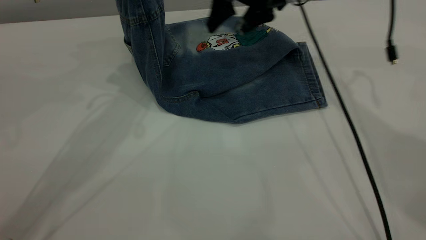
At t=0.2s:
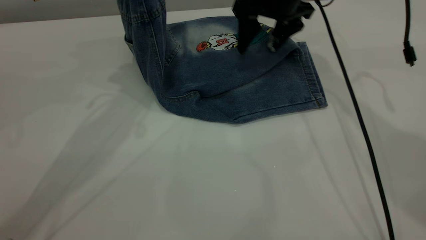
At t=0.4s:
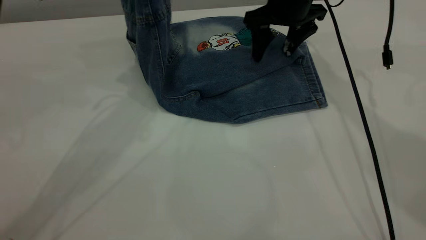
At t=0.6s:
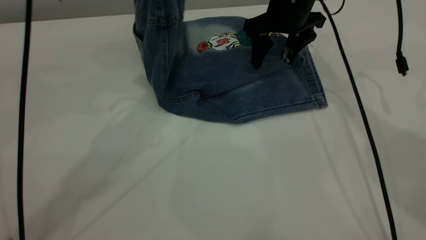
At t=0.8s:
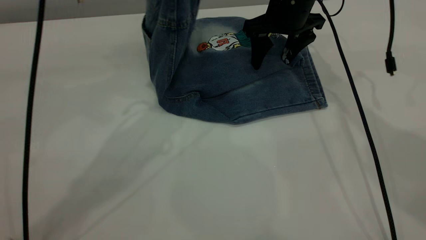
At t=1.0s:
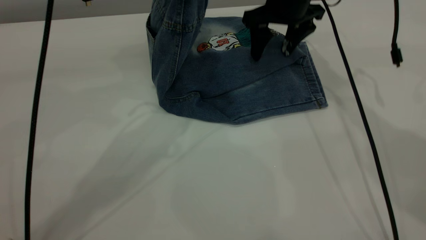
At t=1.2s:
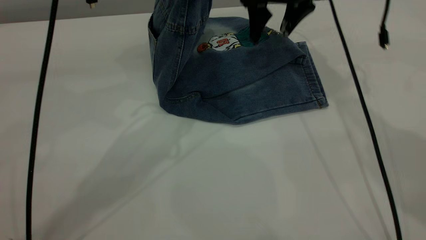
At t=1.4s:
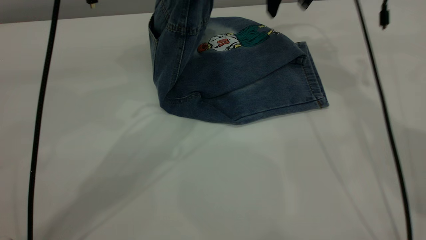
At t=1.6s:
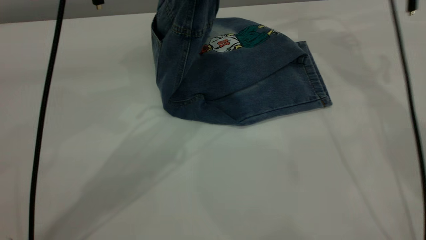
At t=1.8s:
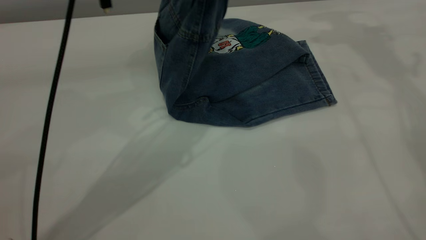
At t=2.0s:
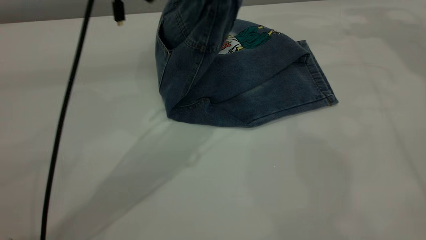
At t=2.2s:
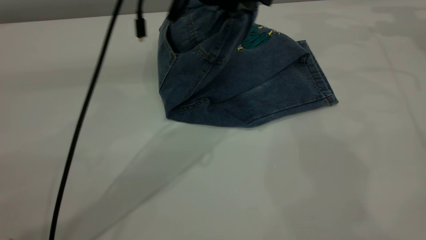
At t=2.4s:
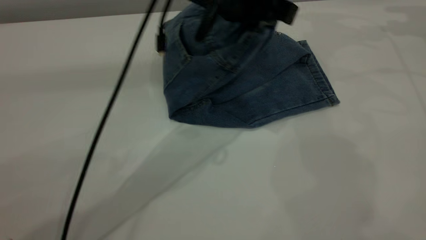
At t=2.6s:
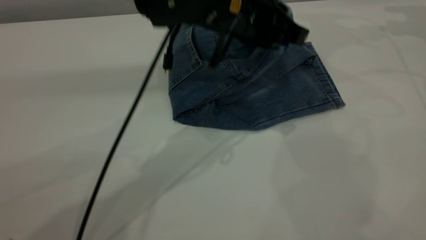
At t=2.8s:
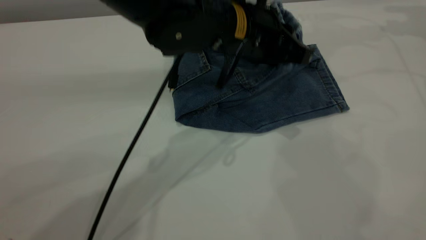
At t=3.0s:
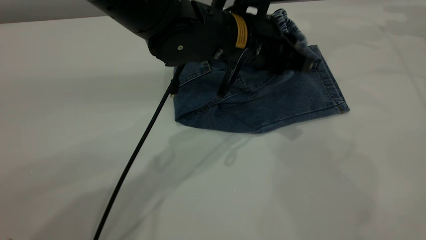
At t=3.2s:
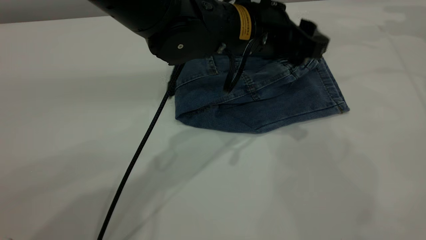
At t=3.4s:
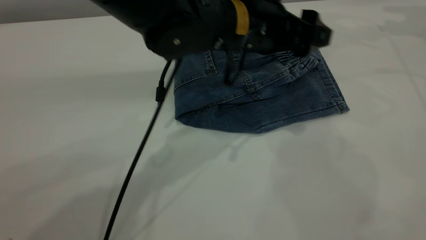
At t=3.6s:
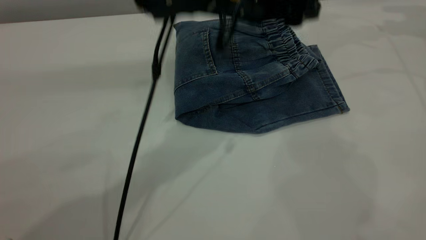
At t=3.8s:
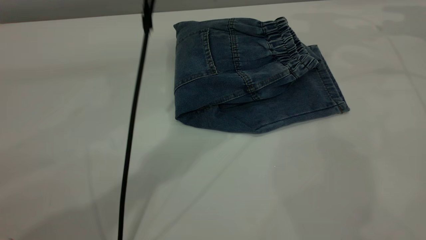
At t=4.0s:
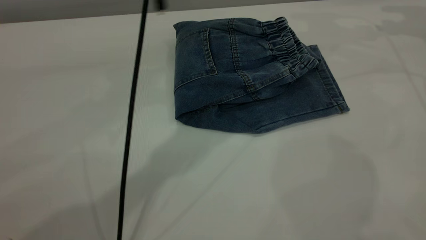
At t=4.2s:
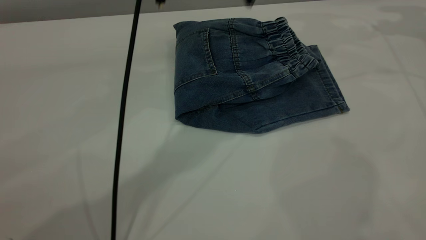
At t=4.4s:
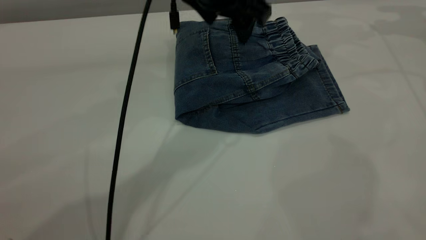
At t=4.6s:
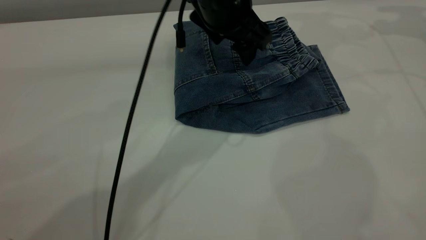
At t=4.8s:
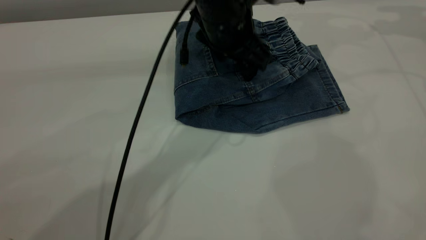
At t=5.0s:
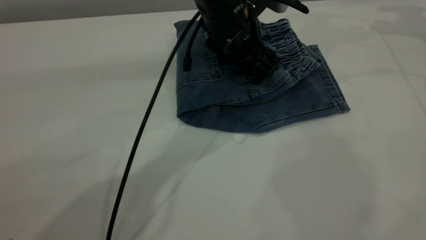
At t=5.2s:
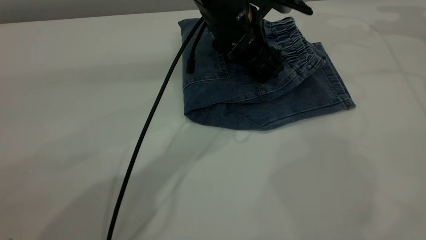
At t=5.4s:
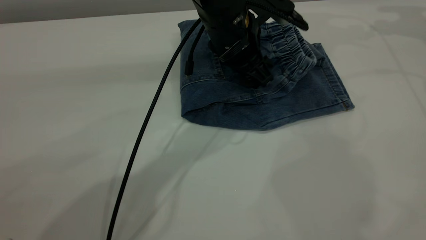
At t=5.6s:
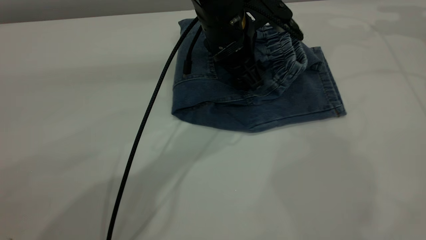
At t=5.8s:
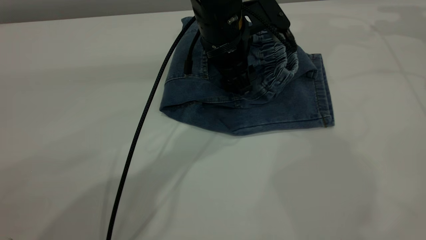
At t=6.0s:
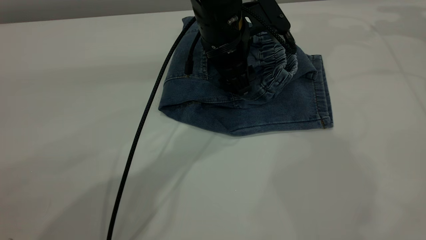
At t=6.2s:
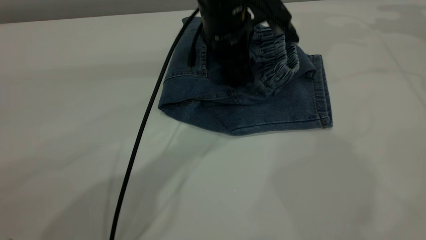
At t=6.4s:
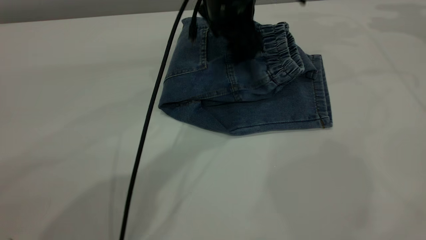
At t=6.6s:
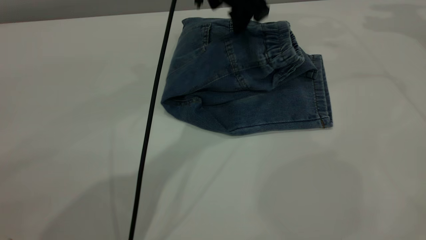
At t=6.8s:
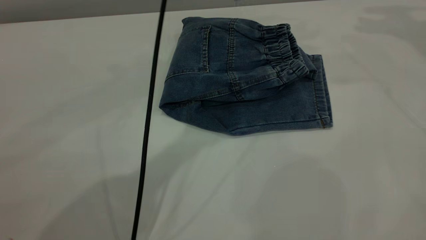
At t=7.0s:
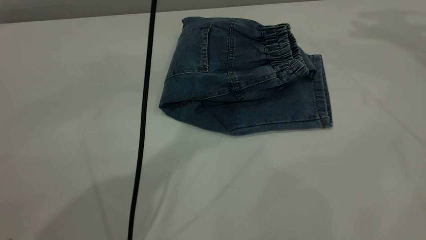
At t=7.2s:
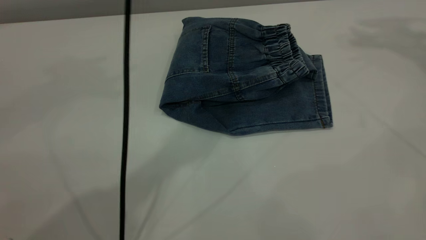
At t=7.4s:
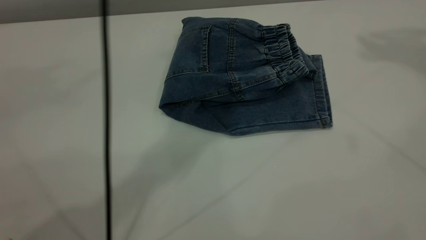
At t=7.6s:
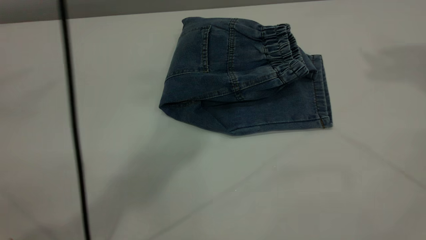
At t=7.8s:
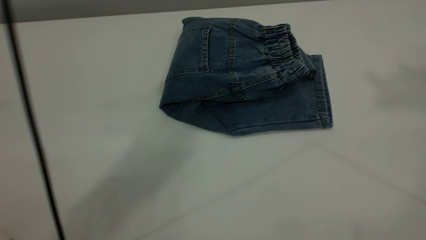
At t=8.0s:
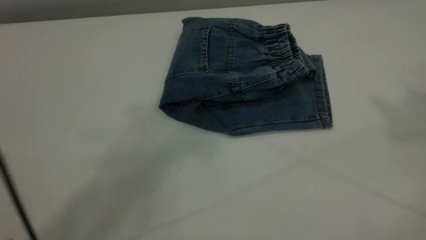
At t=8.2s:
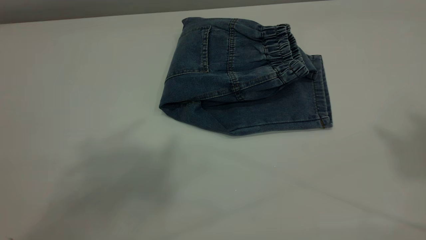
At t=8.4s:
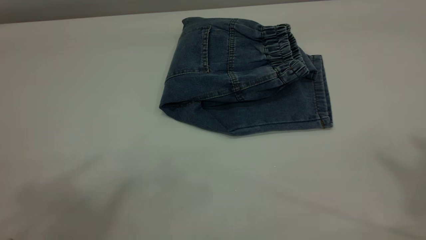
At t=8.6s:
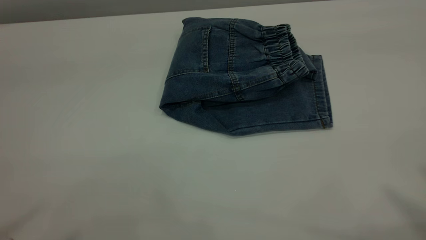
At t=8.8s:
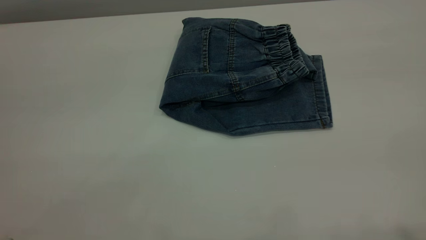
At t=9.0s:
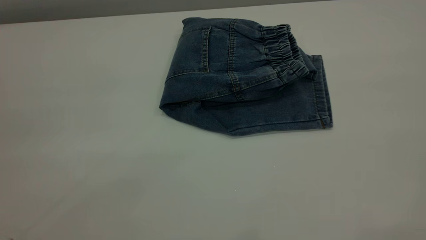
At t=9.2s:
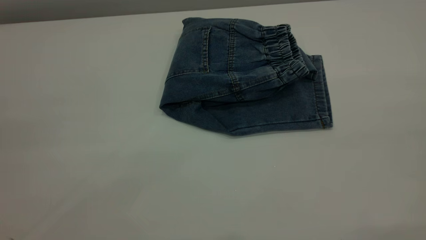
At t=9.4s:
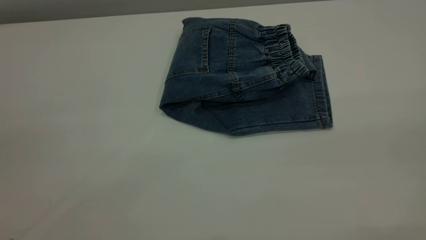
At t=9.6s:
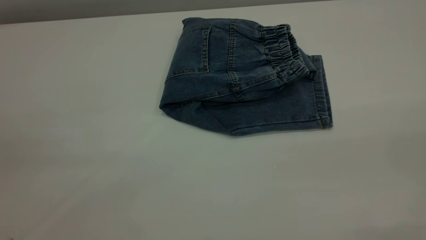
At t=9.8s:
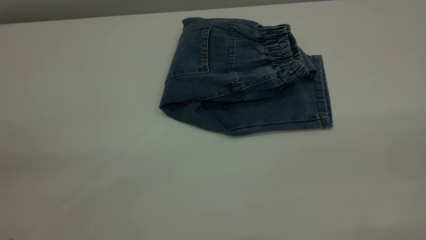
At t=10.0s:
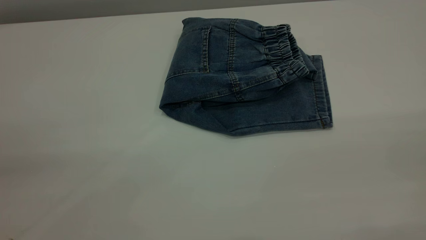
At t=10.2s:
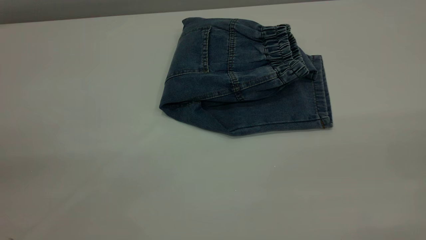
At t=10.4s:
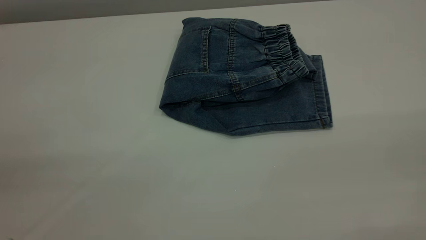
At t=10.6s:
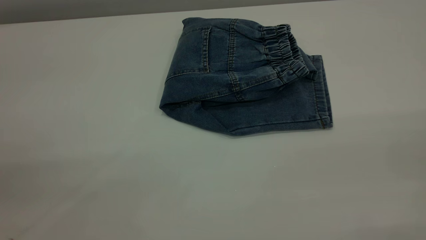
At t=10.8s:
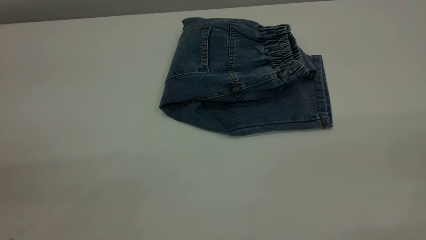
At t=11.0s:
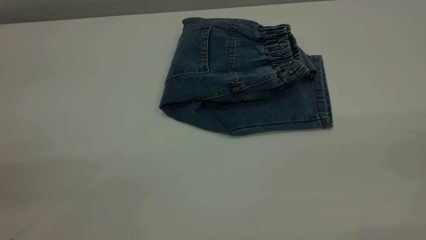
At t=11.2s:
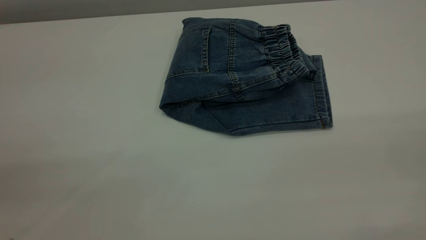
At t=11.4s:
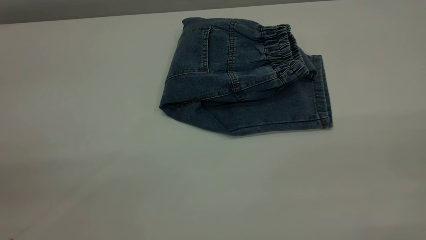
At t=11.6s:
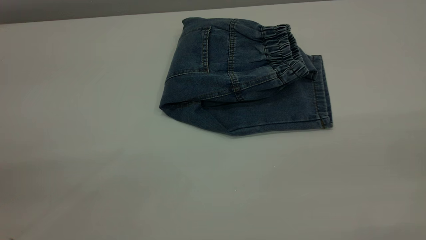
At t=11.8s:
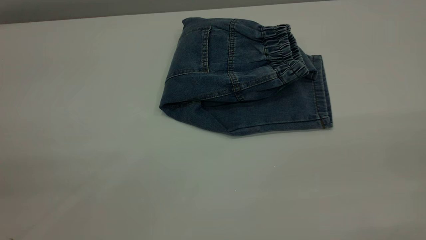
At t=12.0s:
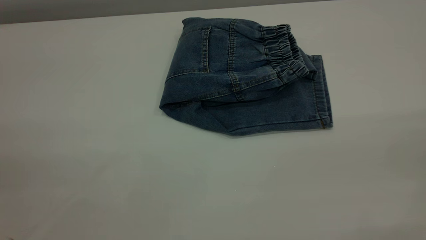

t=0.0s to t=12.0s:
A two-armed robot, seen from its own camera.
Step, t=0.0s to t=3.6s: Fold the pants from left to right.
t=0.0s to t=1.6s: The right gripper is displaced to the right and upward by approximately 10 cm; the left gripper moves to the right, roughly 10 cm.
t=1.6s to t=3.0s: The left gripper goes roughly 15 cm downward and to the right. The right gripper goes roughly 20 cm to the right.
t=3.0s to t=4.4s: The left gripper is displaced upward by approximately 5 cm, and opens its fingers.
t=4.4s to t=6.0s: The left gripper shifts approximately 10 cm downward.
t=6.0s to t=7.6s: The left gripper moves upward, approximately 40 cm; the right gripper moves upward and backward, some 30 cm.
t=7.6s to t=9.0s: The left gripper moves backward and to the left, approximately 40 cm.

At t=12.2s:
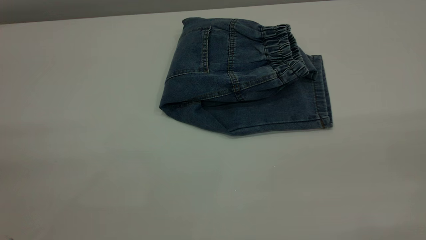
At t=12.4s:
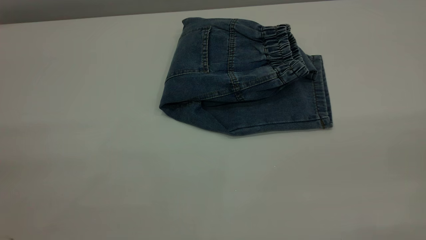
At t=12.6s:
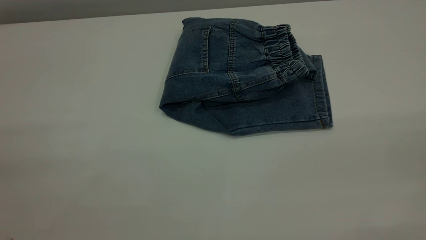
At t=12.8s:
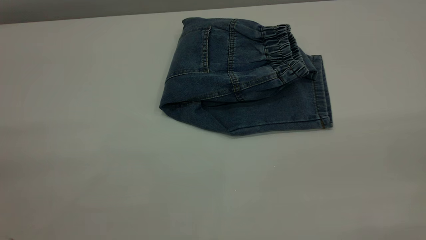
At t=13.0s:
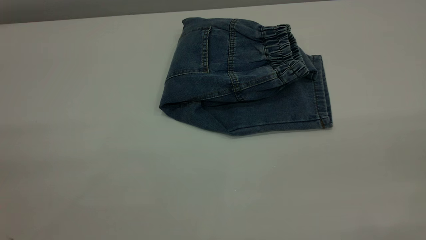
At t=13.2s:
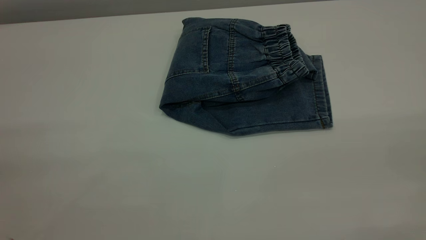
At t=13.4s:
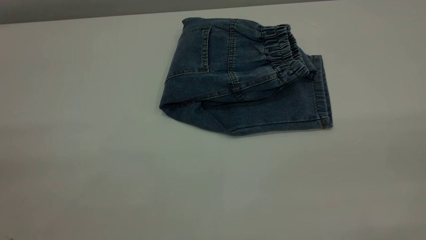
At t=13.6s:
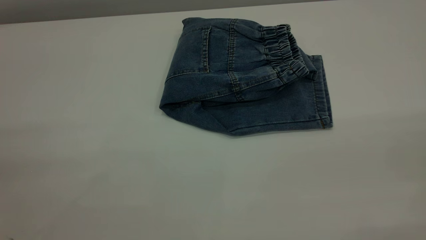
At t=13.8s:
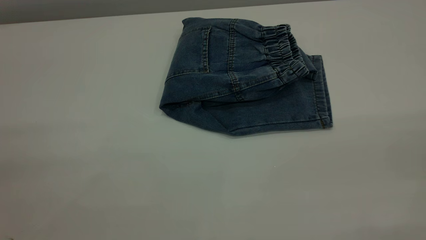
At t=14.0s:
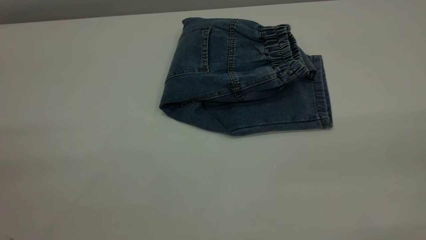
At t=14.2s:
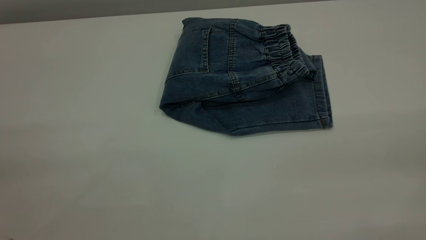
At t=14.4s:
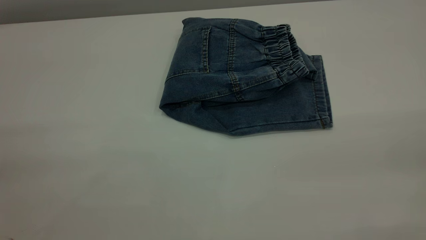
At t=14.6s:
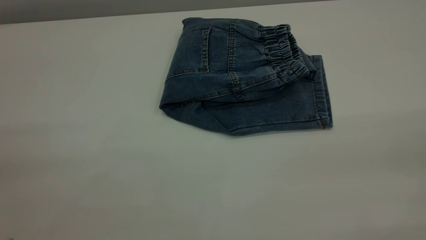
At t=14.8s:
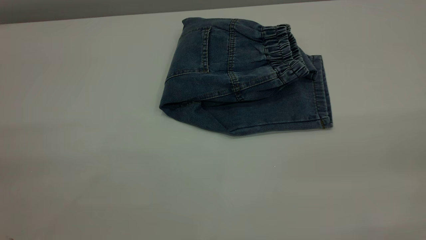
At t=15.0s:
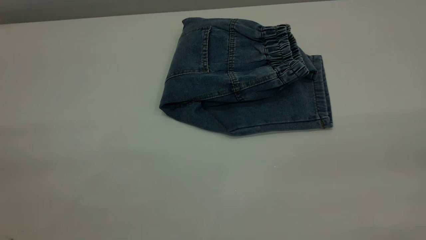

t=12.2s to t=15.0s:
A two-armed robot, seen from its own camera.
t=12.2s to t=13.6s: Both grippers stay put.

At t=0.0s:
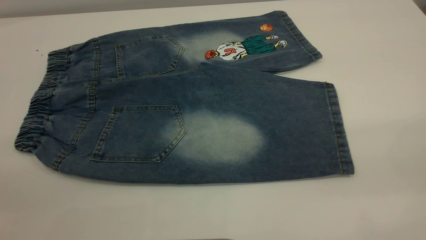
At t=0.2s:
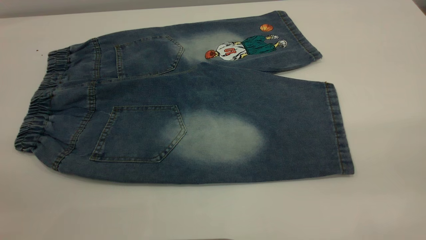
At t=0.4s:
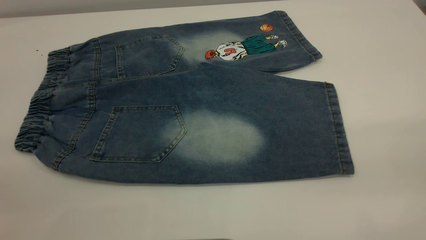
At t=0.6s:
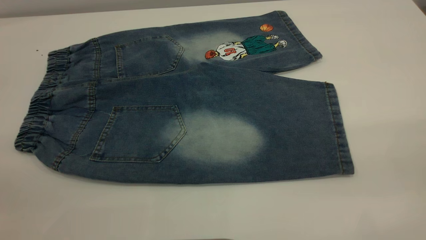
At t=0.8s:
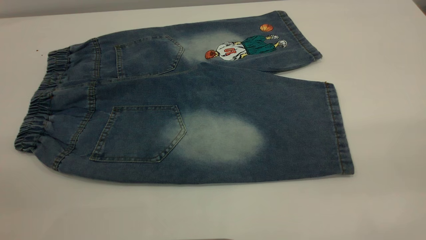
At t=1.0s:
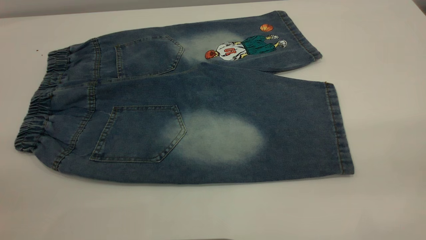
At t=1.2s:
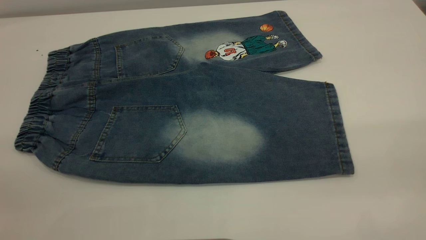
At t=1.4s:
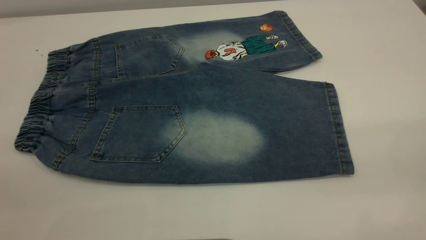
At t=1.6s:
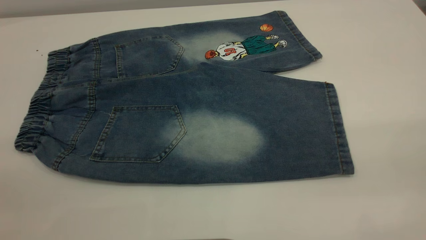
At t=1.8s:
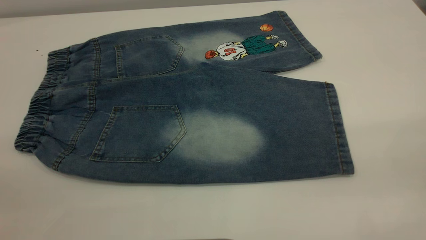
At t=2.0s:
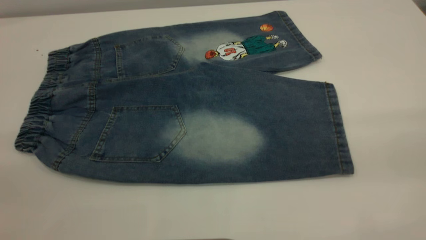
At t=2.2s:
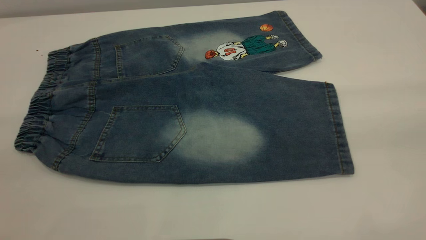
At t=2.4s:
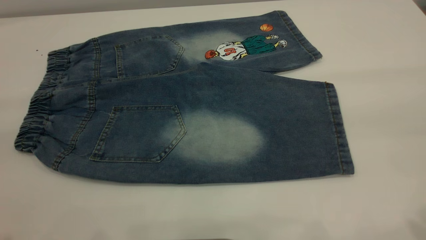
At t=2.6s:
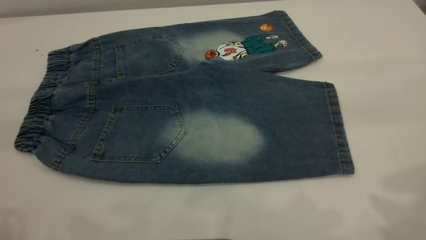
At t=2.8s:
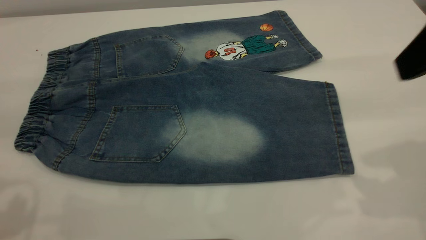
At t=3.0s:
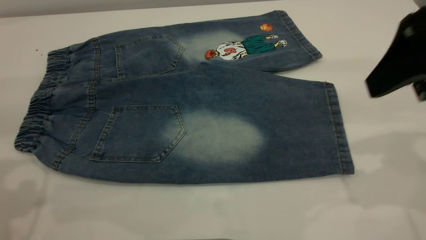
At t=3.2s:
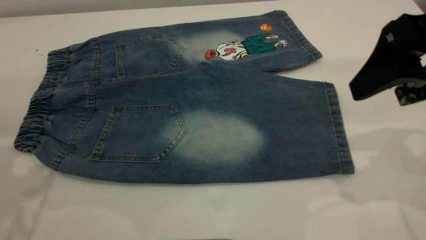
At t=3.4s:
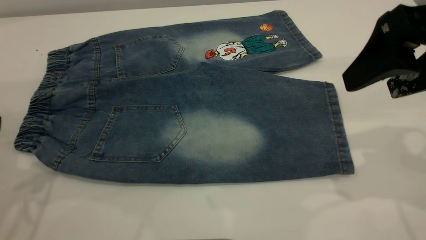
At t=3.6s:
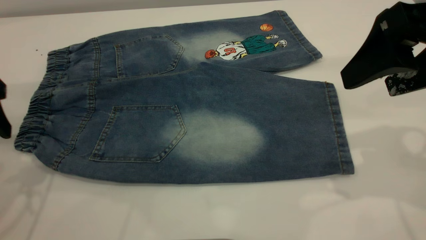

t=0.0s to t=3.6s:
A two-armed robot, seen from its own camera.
t=0.0s to t=1.8s: Both grippers stay put.
t=1.8s to t=3.6s: The left gripper heads forward and downward, covering approximately 30 cm. Meanwhile the right gripper goes about 25 cm forward.
